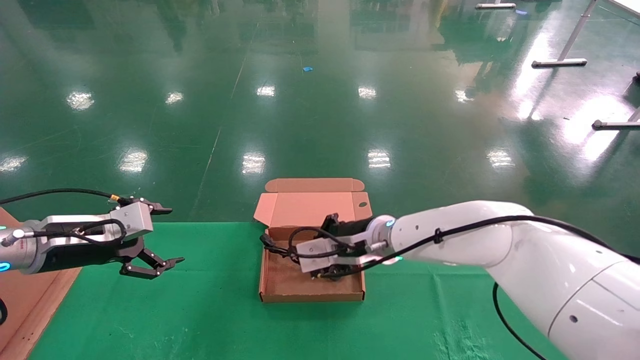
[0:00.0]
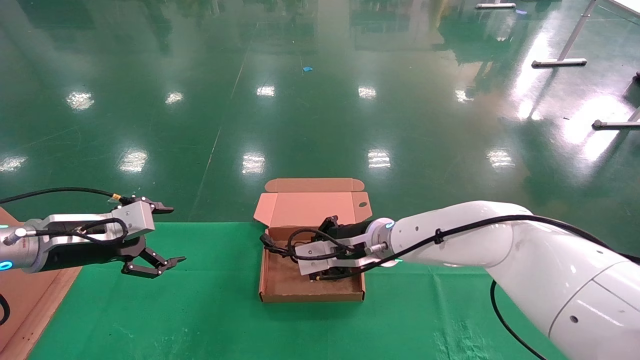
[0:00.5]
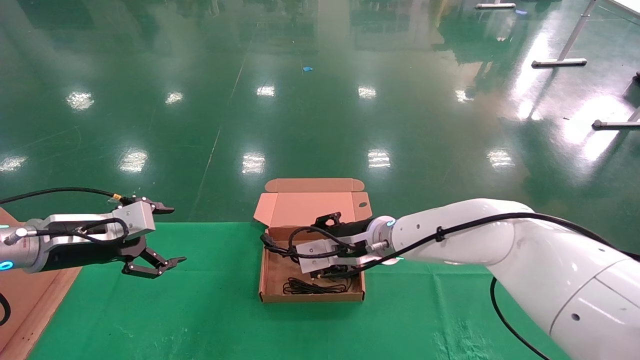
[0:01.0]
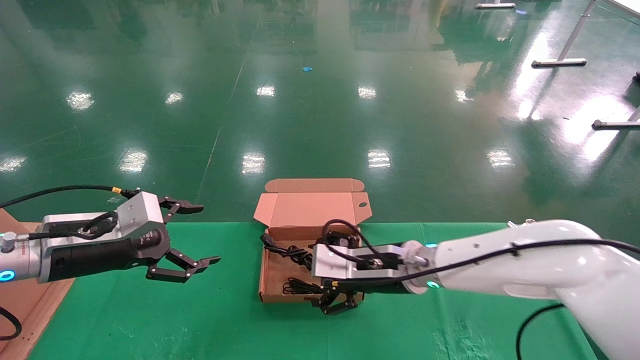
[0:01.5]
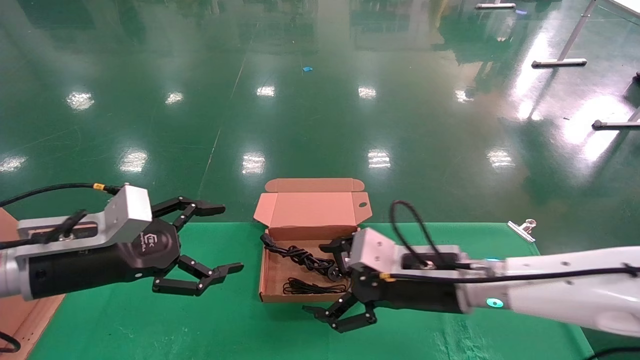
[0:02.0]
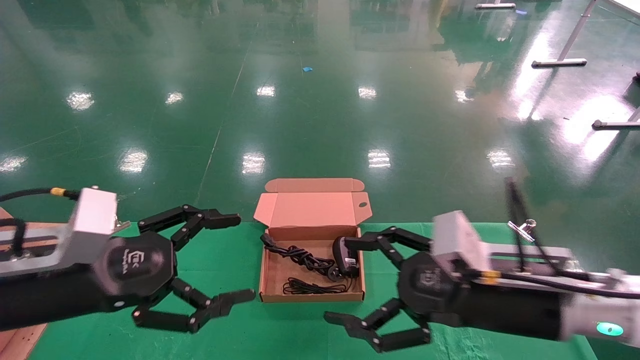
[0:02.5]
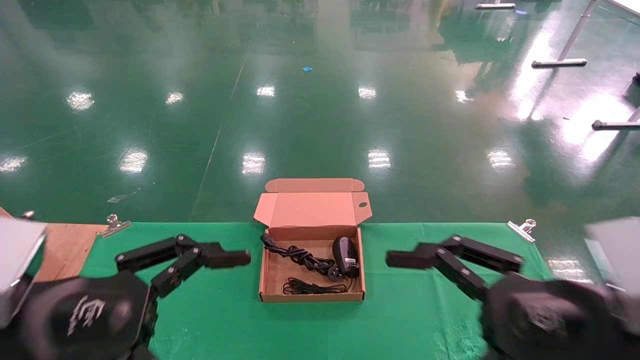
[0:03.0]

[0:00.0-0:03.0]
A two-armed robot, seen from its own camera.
0:00.0 to 0:01.5: The left gripper changes place by some 5 cm. Meanwhile the right gripper changes place by roughly 5 cm, and opens.
0:01.5 to 0:03.0: The two grippers go approximately 20 cm backward and to the right.
